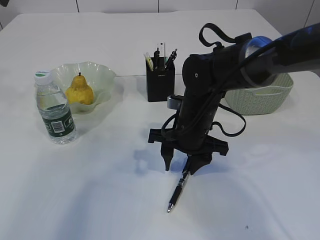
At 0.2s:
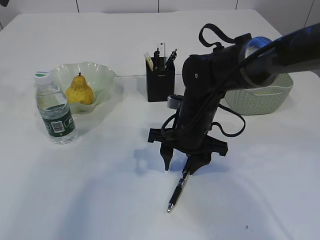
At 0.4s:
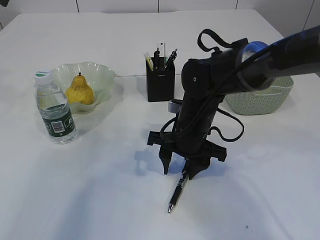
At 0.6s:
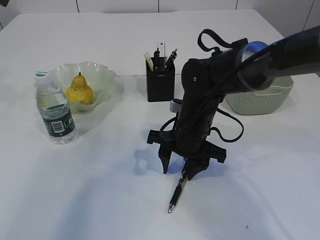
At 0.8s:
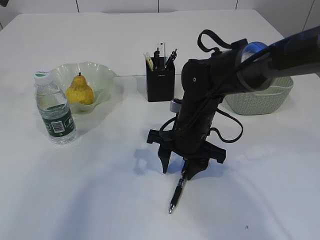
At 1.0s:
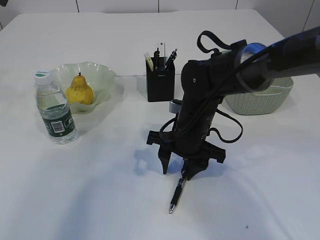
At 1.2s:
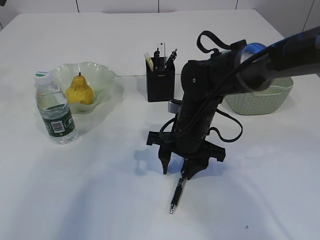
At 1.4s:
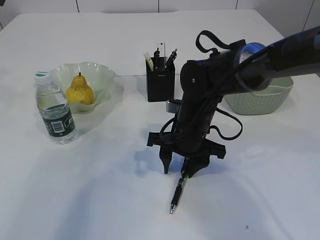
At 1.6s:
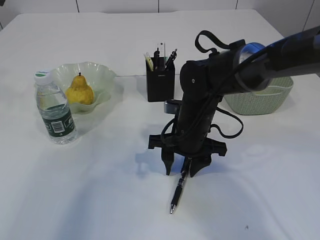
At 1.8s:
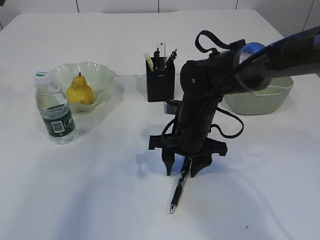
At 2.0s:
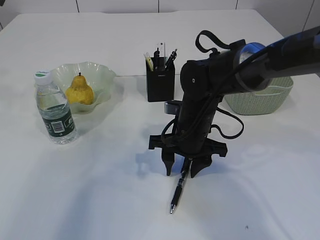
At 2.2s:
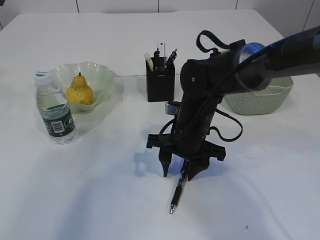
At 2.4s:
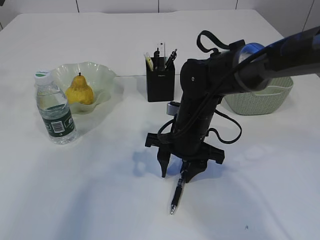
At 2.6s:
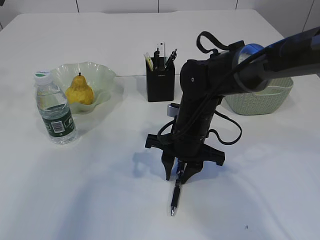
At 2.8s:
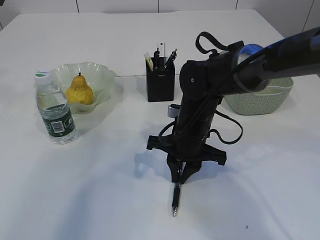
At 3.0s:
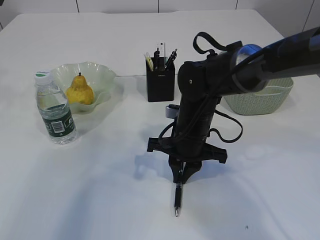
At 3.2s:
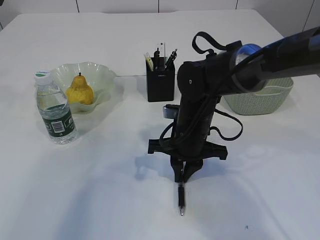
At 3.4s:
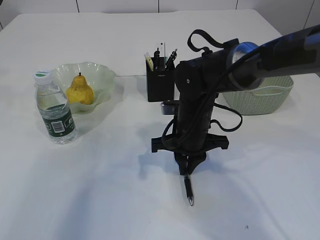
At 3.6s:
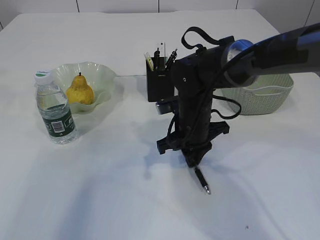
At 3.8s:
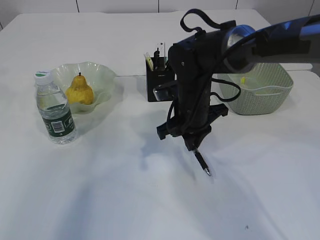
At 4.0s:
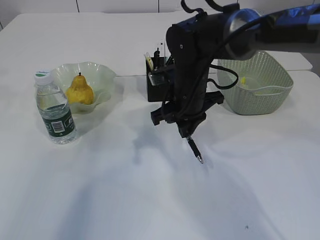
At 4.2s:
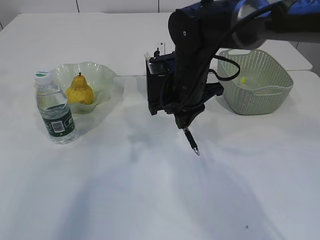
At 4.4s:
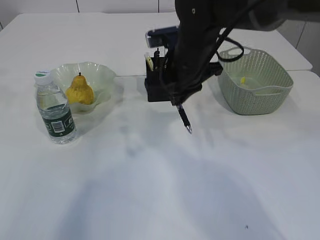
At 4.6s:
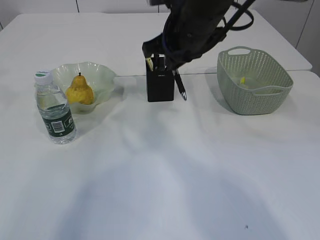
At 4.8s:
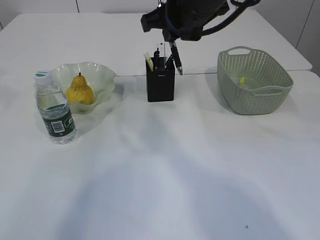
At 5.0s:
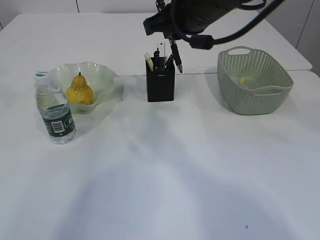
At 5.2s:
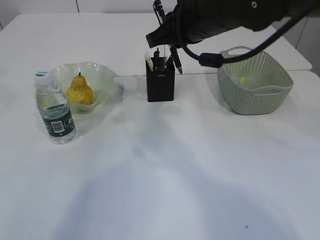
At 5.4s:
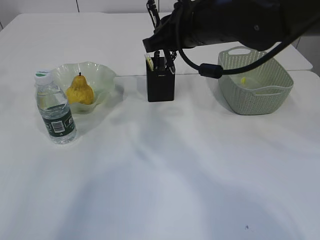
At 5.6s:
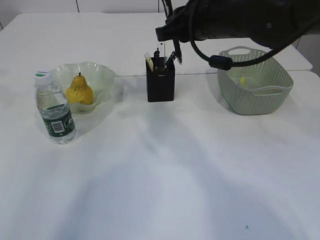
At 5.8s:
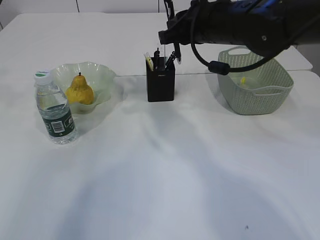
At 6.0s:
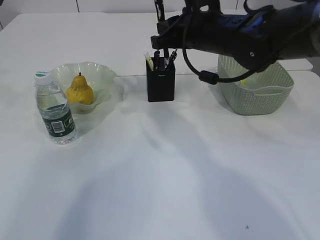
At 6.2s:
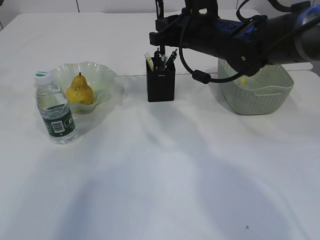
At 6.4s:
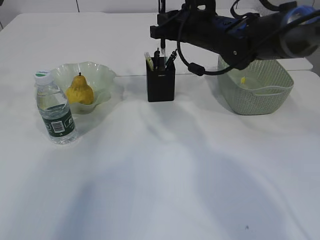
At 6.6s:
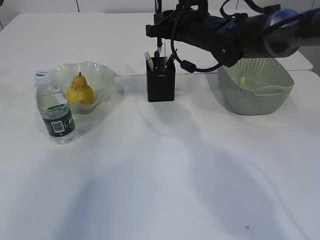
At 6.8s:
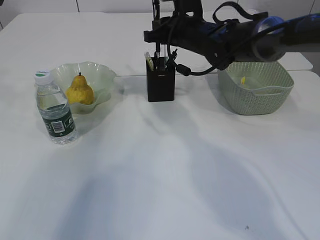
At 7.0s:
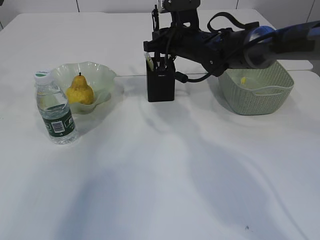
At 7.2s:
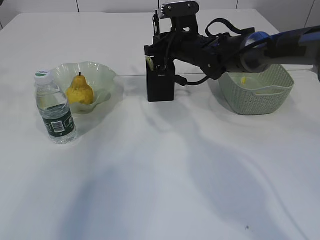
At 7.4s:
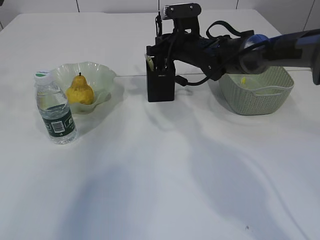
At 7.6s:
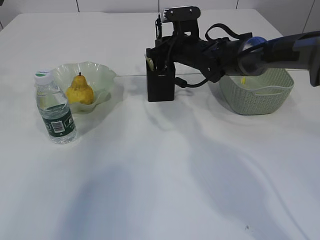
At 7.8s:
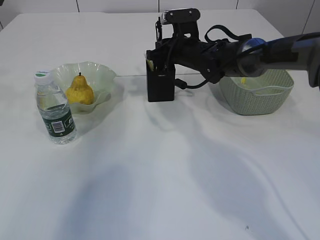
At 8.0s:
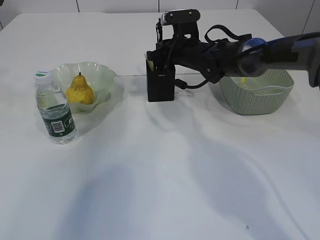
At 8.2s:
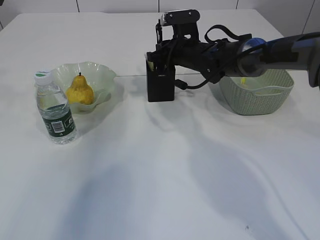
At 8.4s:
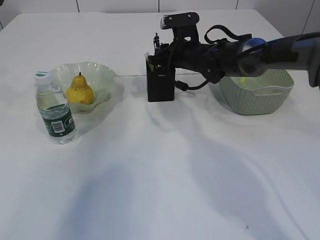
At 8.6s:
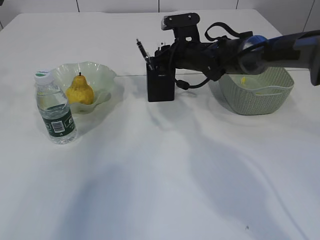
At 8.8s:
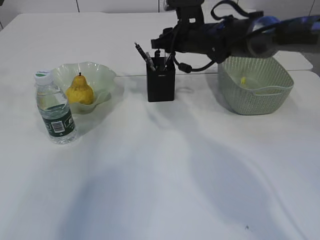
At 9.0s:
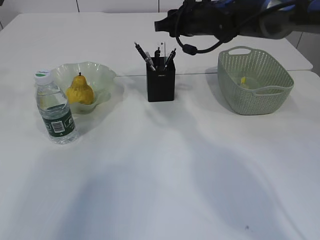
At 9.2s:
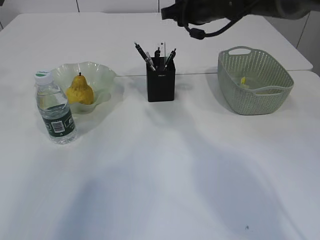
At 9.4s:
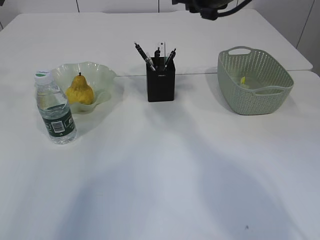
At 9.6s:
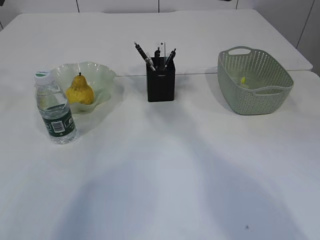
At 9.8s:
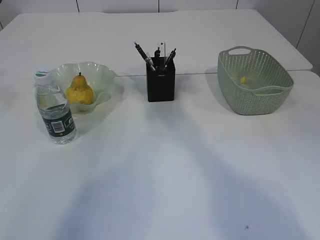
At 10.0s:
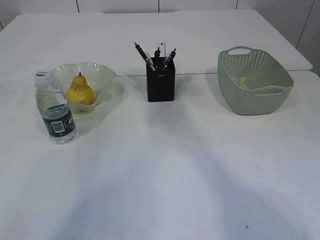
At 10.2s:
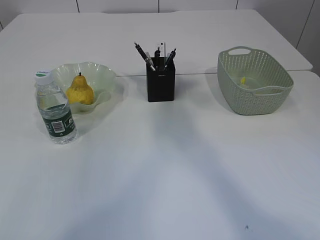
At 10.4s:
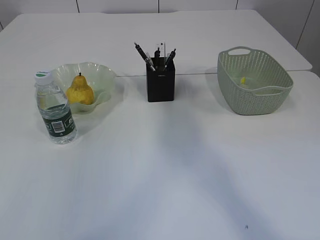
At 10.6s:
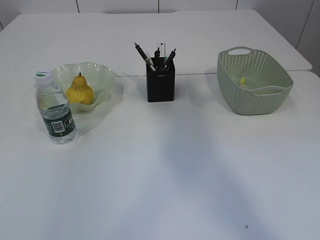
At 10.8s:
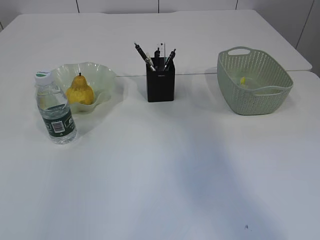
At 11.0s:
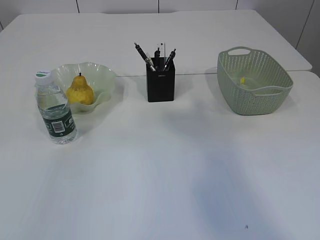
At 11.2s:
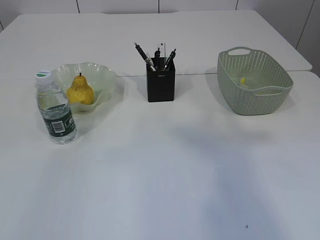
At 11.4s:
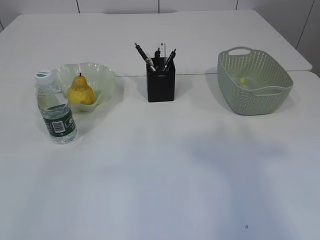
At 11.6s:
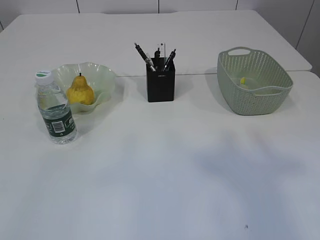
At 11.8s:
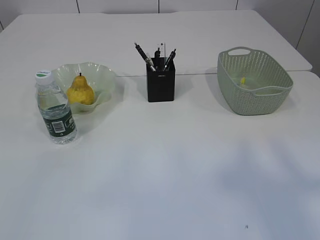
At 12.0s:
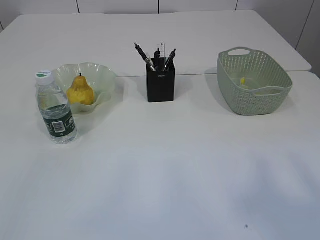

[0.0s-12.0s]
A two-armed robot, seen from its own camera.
Step, 0.0s to 4.4s: Pick up the pen with right arm.
Step, 4.6s to 9.0s: Place the pen into the pen holder.
0.0s to 1.6s: There are only small adjustments of the grippers.
1.6s to 3.0s: The right gripper closes up.
3.0s to 4.4s: The right gripper goes some 10 cm upward.
4.4s to 6.0s: The right gripper travels upward and back again, about 10 cm each way.
6.0s to 7.6s: The right gripper moves forward and downward, roughly 15 cm.
7.6s to 9.0s: The right gripper moves upward, about 5 cm, and opens its fingers.
9.0s to 10.4s: The right gripper heads upward and backward, covering approximately 35 cm. The left gripper is displaced upward and backward by approximately 15 cm.
10.4s to 12.0s: The right gripper heads backward and to the right, covering some 30 cm. Meanwhile the left gripper heads backward, covering some 35 cm, and opens up.

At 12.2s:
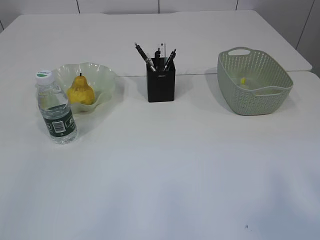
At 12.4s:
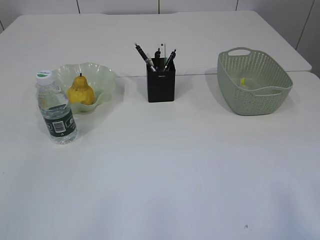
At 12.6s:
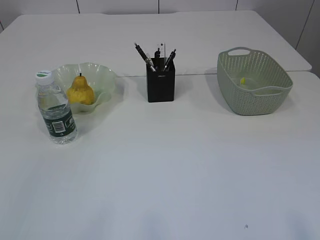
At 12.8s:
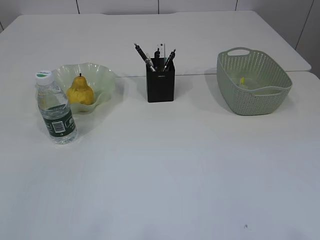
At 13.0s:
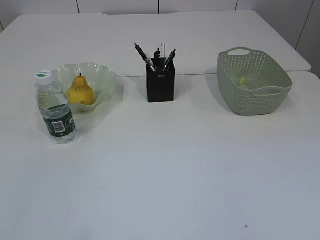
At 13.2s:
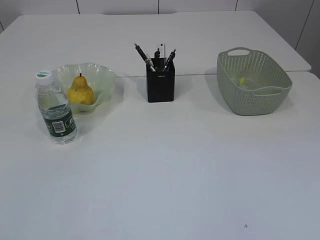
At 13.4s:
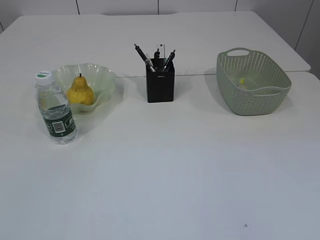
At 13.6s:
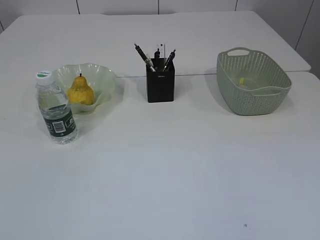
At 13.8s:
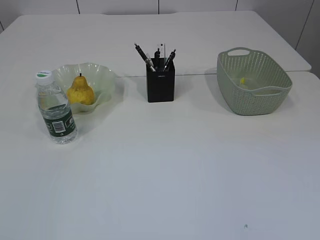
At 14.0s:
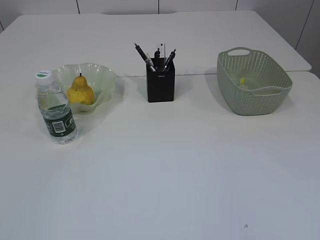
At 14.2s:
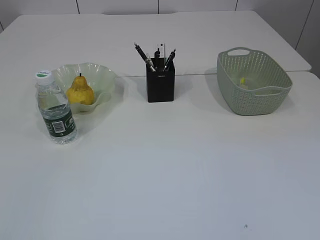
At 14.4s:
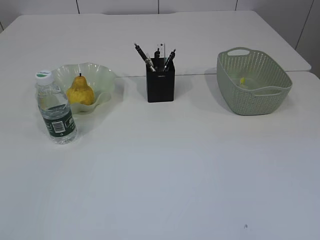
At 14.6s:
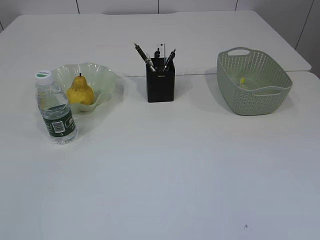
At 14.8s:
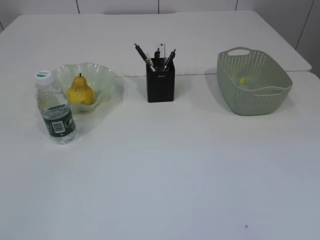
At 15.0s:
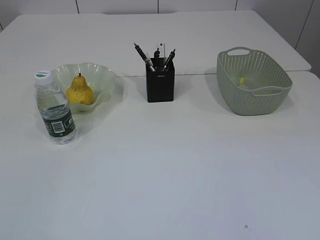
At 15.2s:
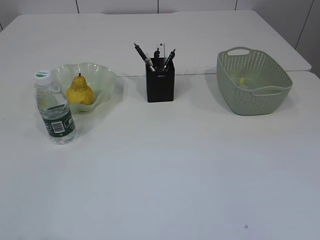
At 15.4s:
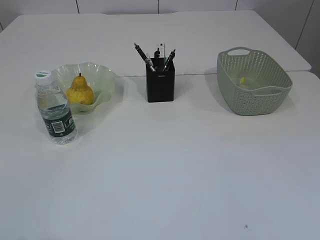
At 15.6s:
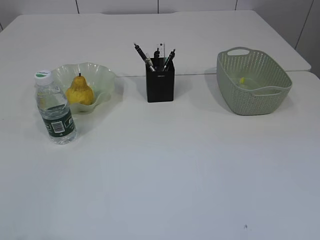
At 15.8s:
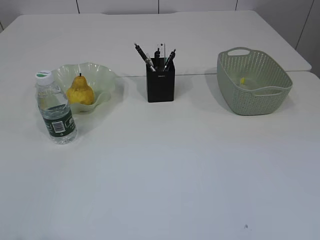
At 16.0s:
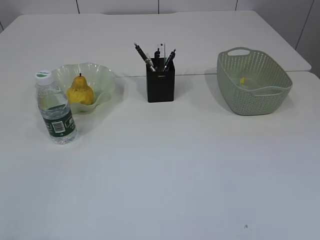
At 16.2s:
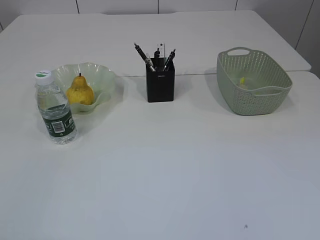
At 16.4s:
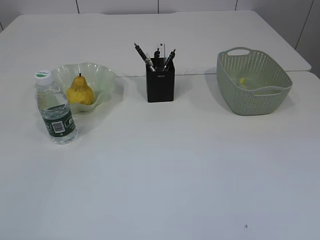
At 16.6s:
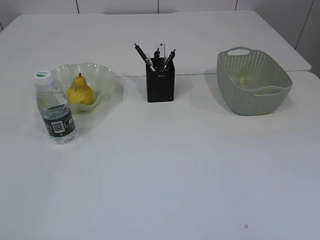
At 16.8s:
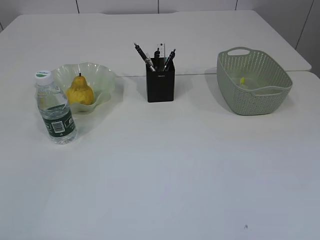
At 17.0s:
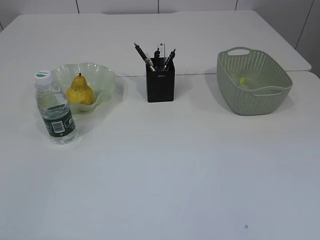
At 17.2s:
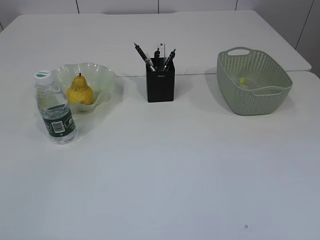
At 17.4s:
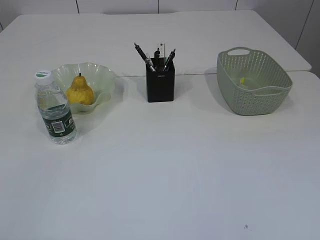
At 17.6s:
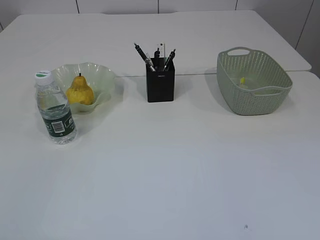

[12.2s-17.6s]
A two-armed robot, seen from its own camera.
12.2s to 13.6s: The right gripper moves downward, roughly 20 cm.
16.2s to 17.6s: Both grippers stay about where they are.

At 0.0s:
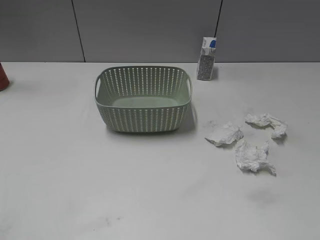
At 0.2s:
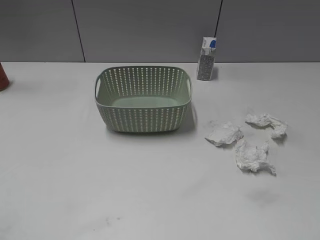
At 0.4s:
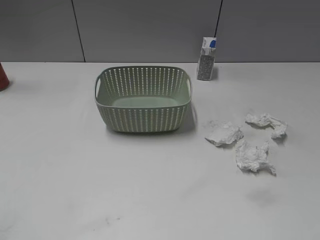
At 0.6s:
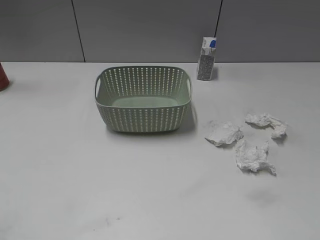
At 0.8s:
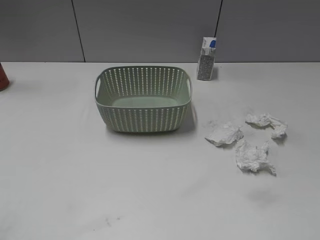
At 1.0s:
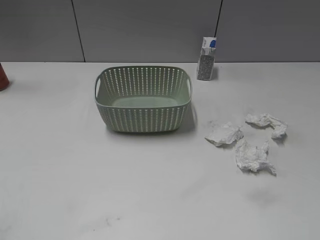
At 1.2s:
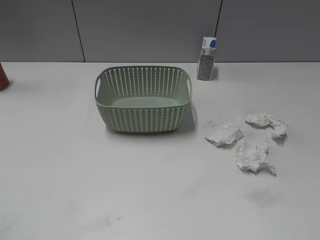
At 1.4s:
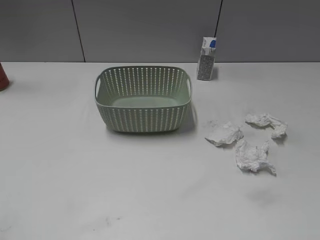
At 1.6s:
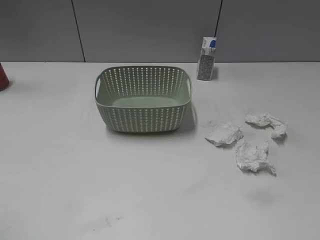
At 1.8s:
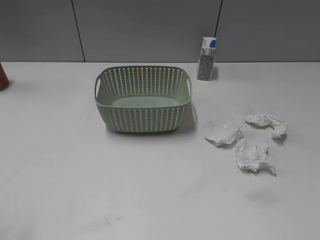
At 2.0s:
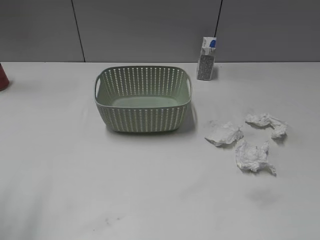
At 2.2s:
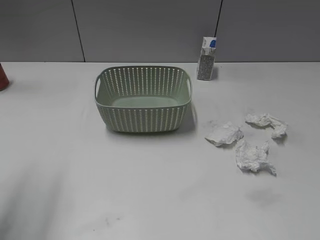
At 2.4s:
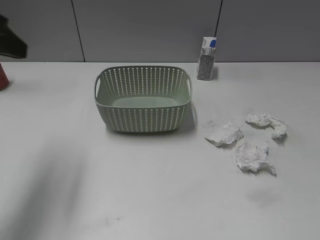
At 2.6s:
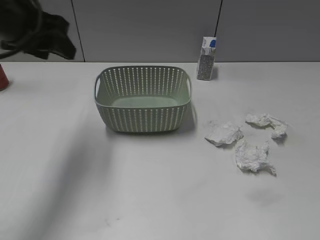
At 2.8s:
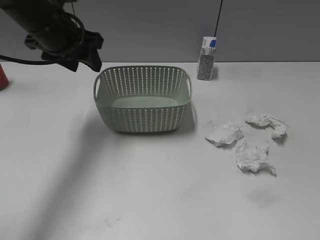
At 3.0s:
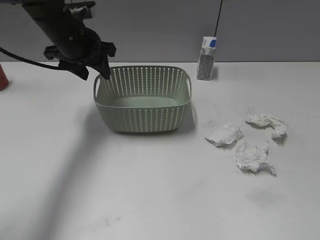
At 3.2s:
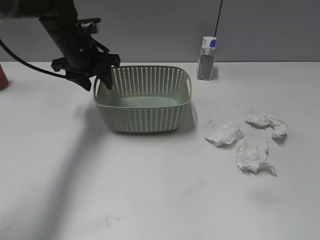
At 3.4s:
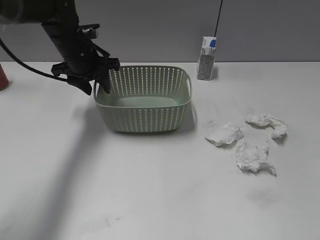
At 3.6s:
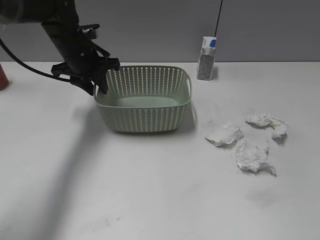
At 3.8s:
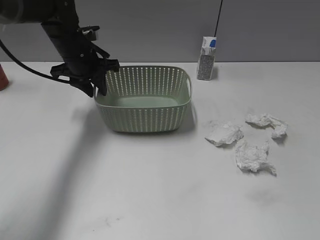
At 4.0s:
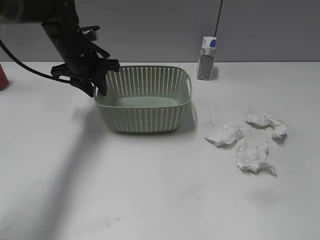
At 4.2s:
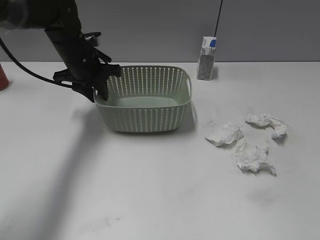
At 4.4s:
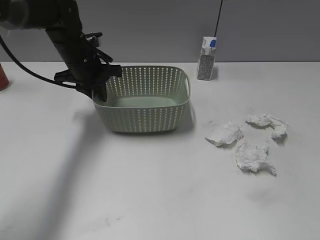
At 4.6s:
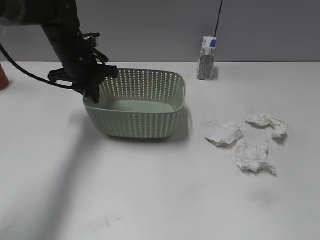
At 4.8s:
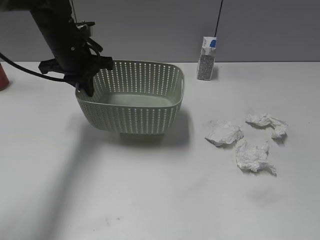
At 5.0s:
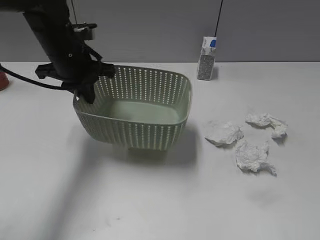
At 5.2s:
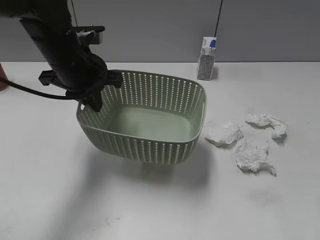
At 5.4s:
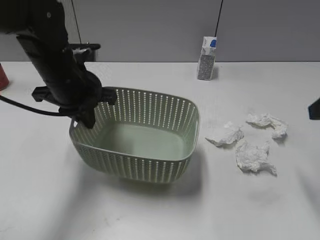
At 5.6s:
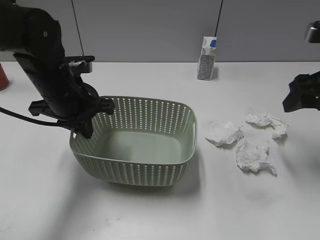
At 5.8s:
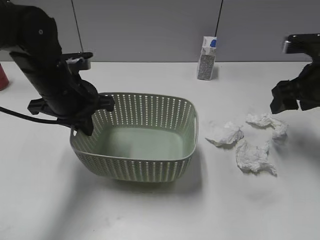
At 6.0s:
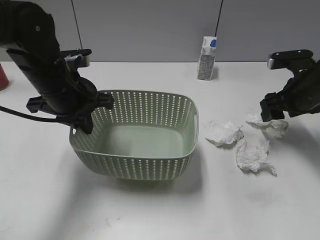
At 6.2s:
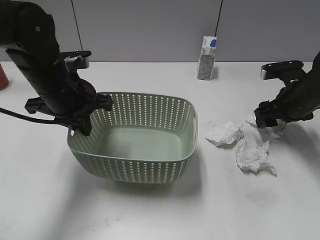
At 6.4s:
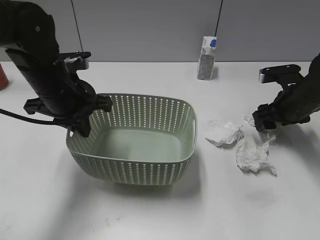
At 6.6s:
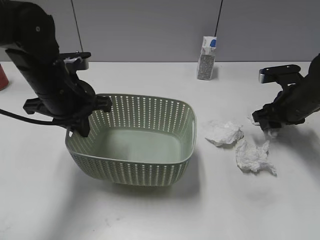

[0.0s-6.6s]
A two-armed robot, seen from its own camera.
Step, 2.2s to 4.8s: Grasp the basket with left gripper.
1.6s to 3.2s: The left gripper moves forward and to the right, roughly 40 cm.
3.2s to 5.0s: The right gripper shifts approximately 5 cm forward. The left gripper is displaced backward by approximately 5 cm, and closes.
5.0s to 6.6s: The right gripper shifts some 35 cm forward and downward, and closes its fingers, while the left gripper travels backward by some 10 cm.
